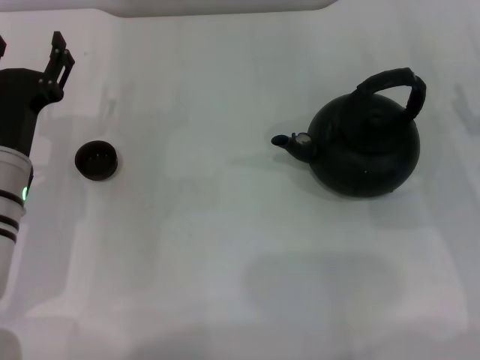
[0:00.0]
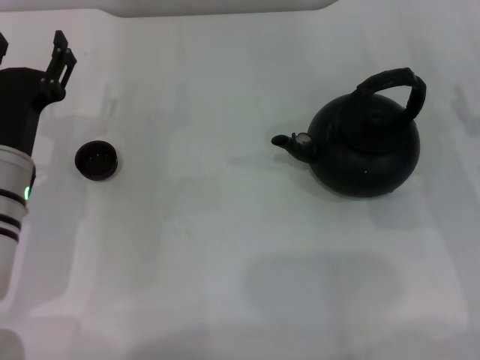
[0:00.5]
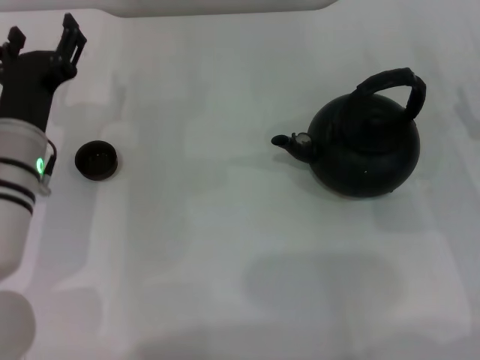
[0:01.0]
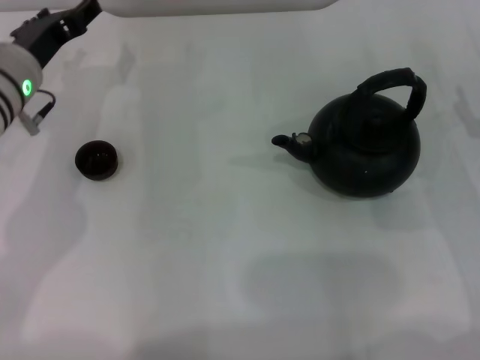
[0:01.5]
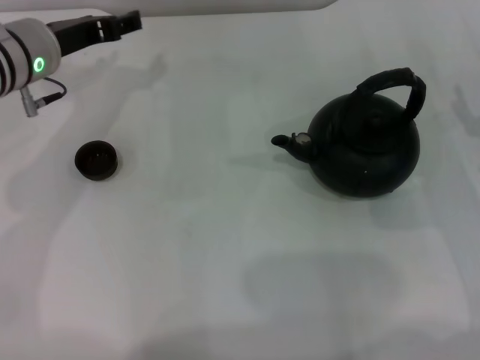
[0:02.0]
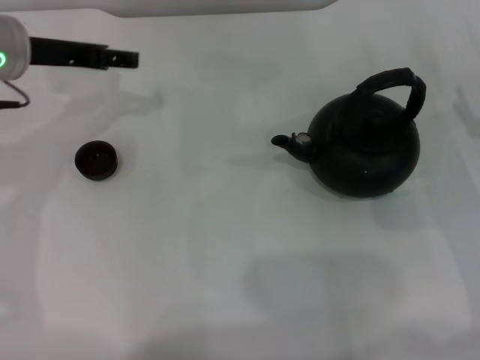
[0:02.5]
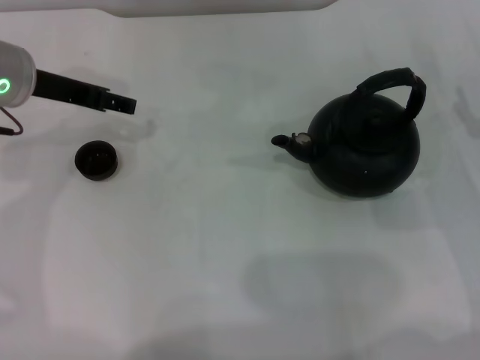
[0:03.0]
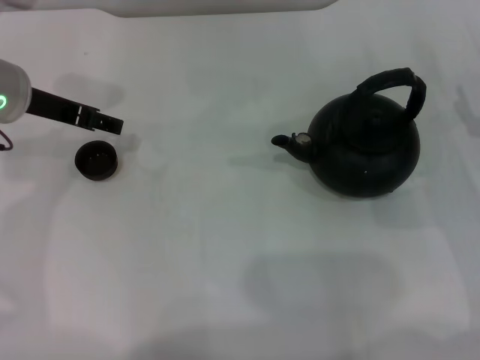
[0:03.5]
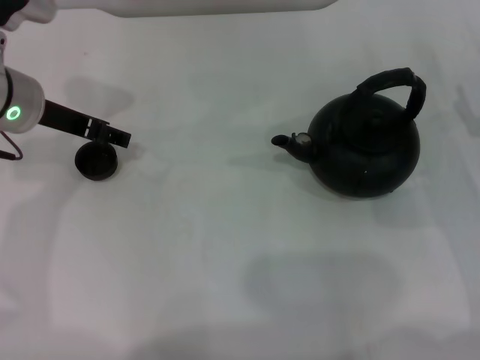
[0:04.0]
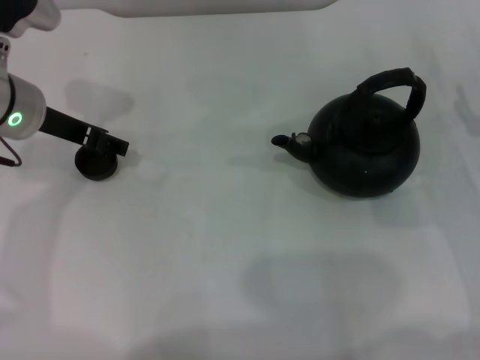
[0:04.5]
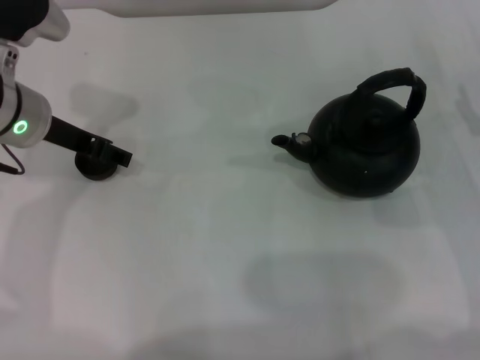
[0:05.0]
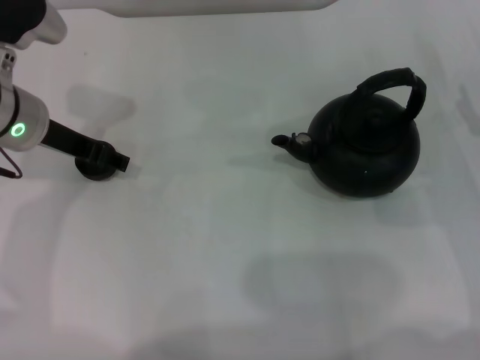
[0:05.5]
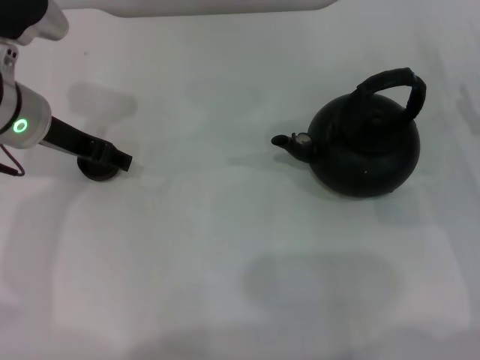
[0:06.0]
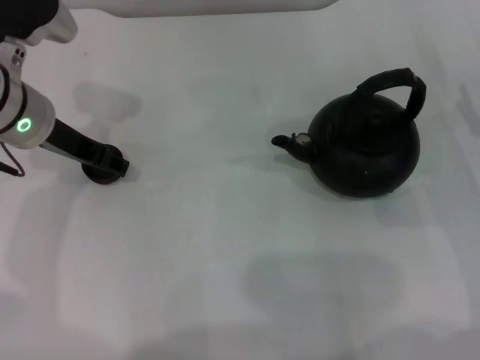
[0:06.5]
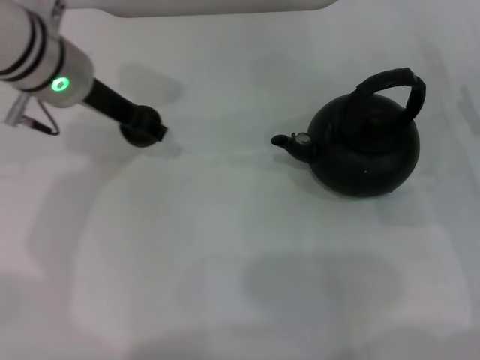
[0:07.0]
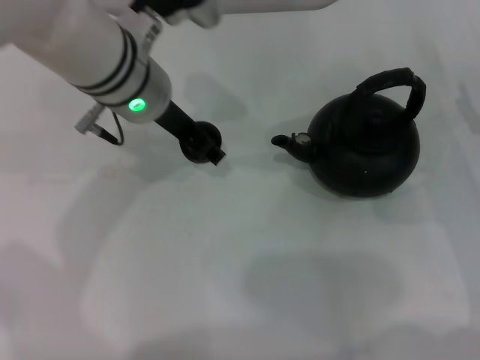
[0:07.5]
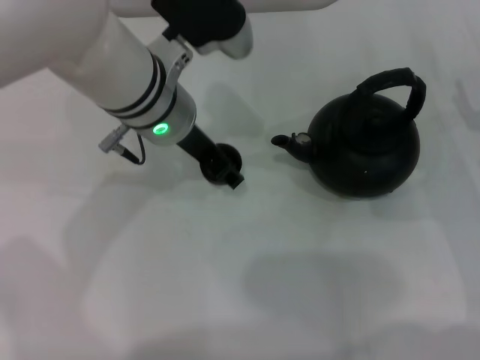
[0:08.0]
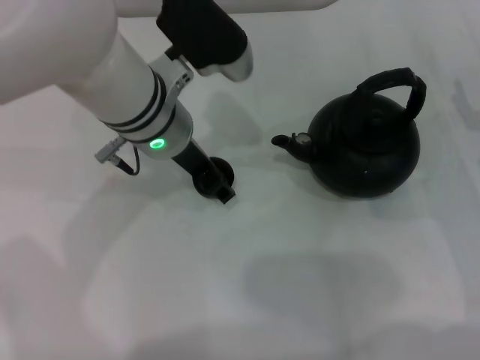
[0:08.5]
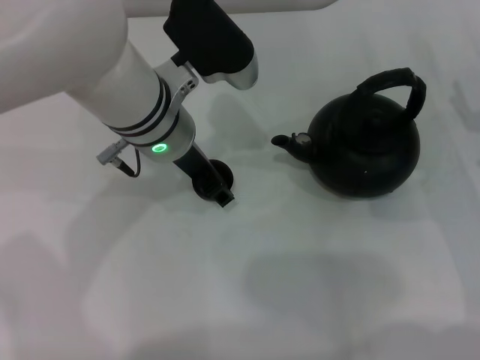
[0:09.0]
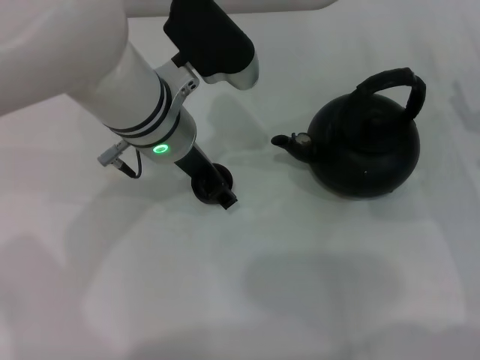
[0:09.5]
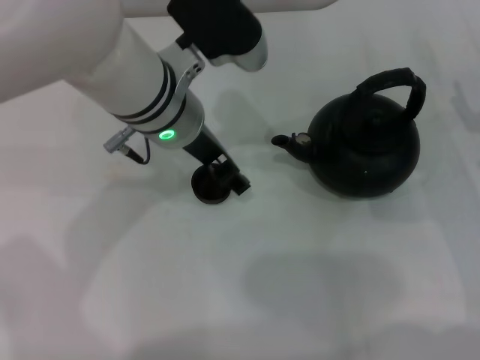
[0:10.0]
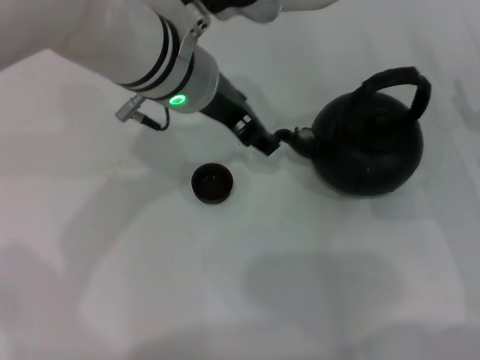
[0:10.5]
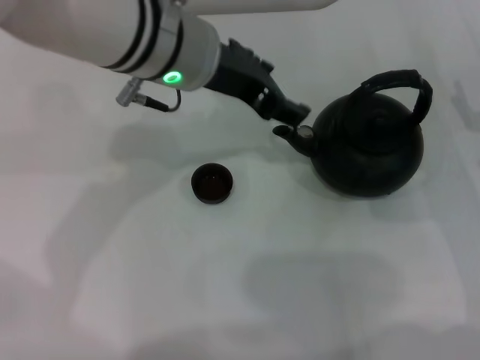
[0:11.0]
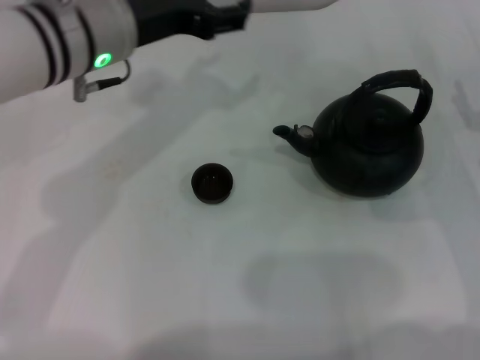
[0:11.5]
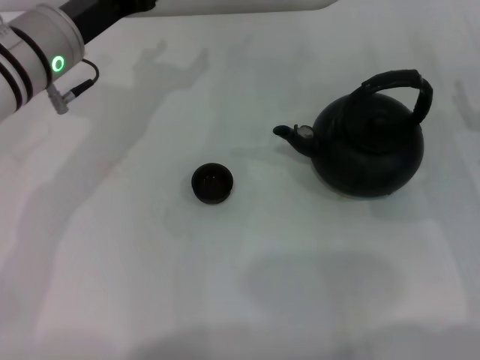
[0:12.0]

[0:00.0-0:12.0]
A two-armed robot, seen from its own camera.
Task of the whole recording: Grasp the handle of the teapot with one hand and pour tea into the teacup.
Step, 0:00.0 to 0:07.0: Pick up the teacup with the left gripper.
Step, 0:07.5 to 0:10.0: Place the teacup in the center of view with the left gripper.
0:00.0 to 0:02.0: The left gripper moves forward and upward, some 15 cm.
0:04.0 to 0:06.0: The grippers stay close to where they were, moving slightly.
0:06.0 to 0:08.0: The left gripper goes roughly 15 cm to the right, and closes its fingers.
0:08.0 to 0:10.0: The left gripper opens its fingers.
0:10.0 to 0:12.0: The left gripper goes approximately 10 cm to the left.

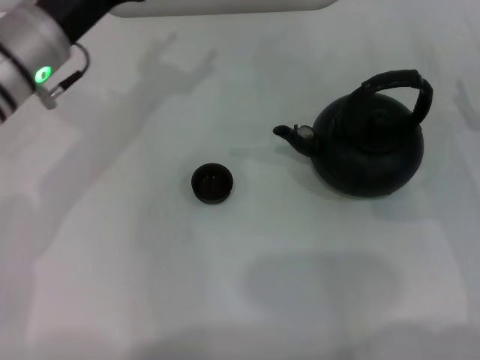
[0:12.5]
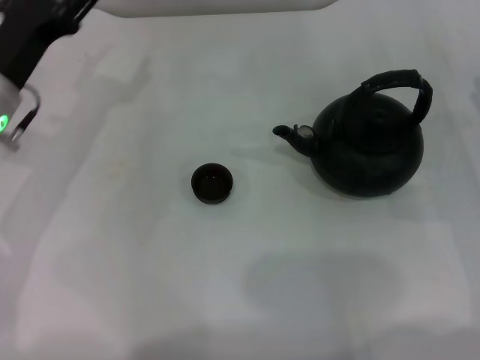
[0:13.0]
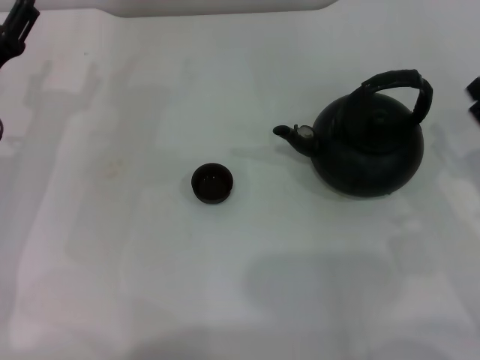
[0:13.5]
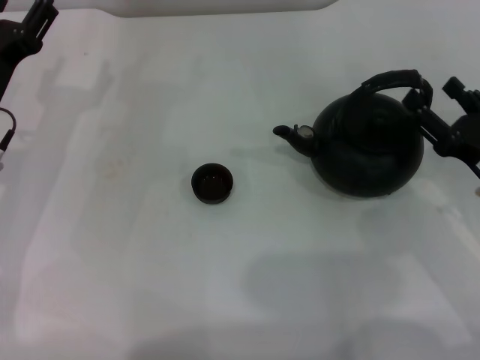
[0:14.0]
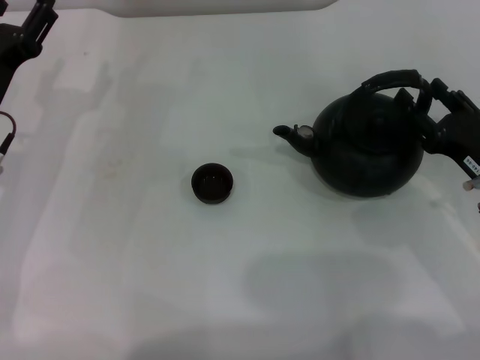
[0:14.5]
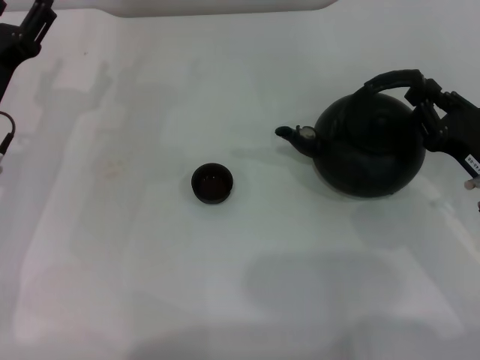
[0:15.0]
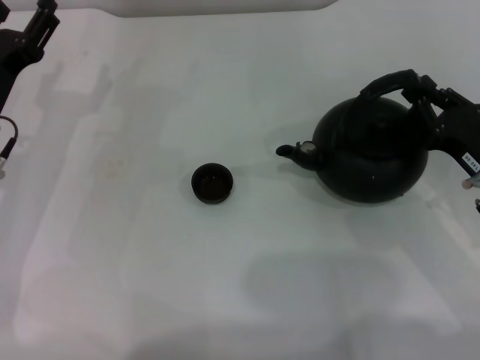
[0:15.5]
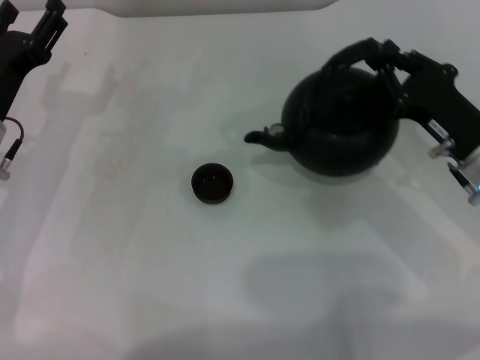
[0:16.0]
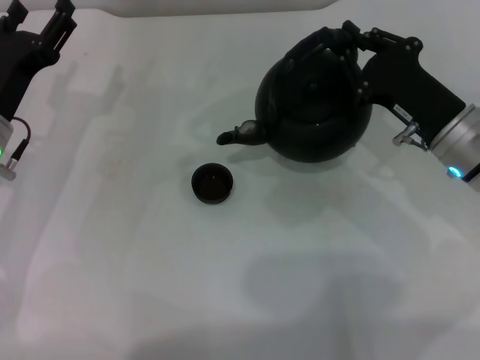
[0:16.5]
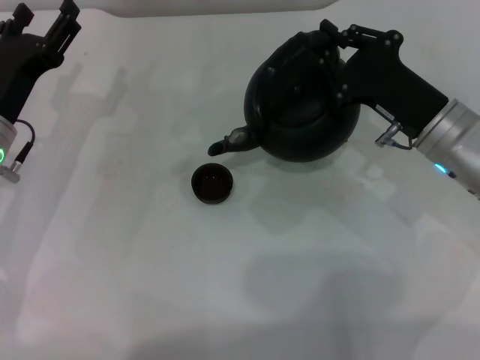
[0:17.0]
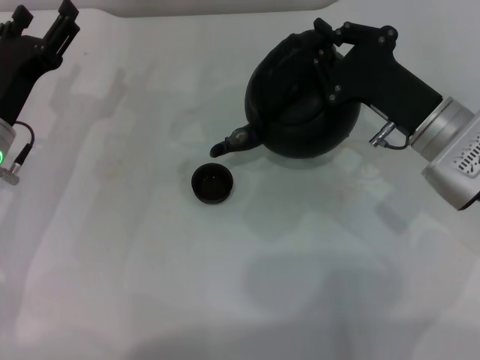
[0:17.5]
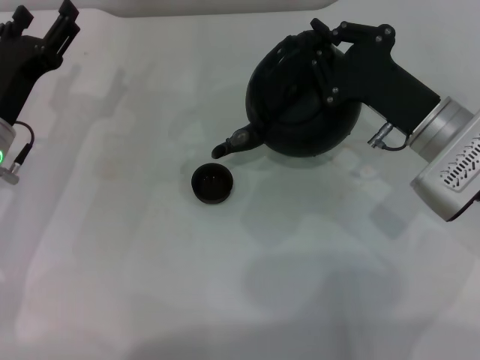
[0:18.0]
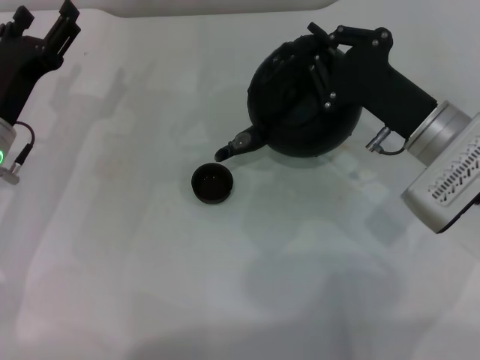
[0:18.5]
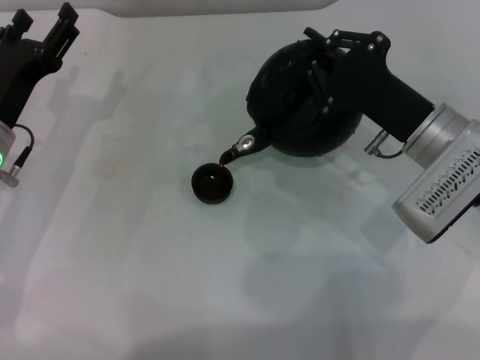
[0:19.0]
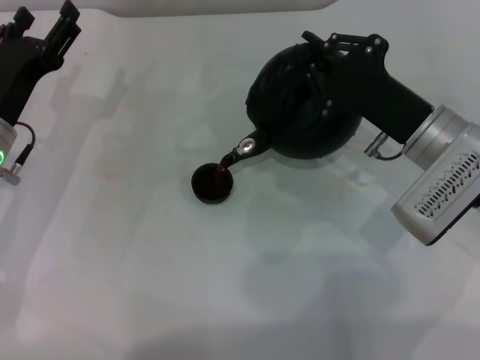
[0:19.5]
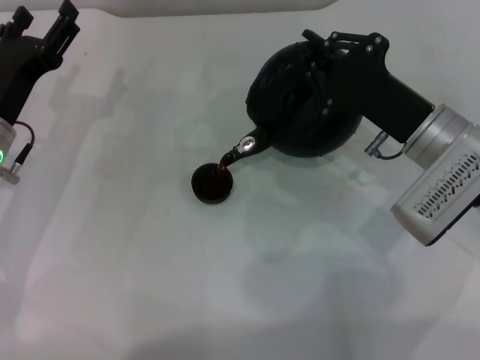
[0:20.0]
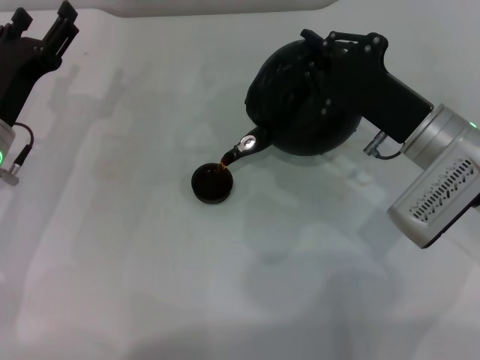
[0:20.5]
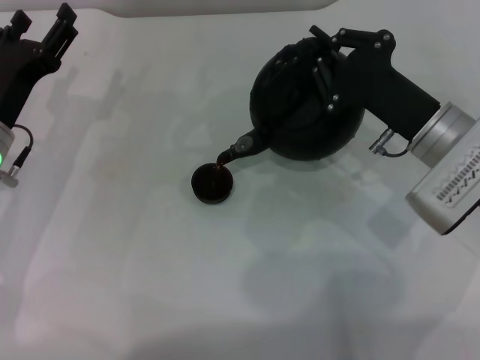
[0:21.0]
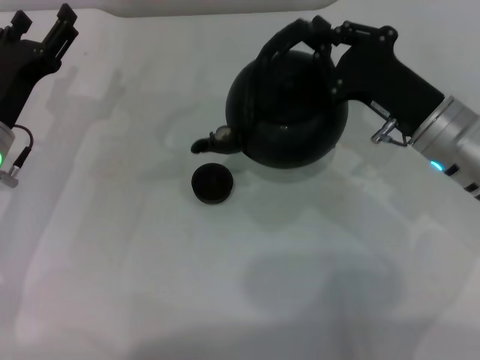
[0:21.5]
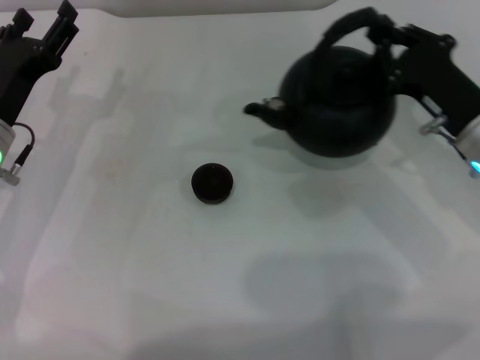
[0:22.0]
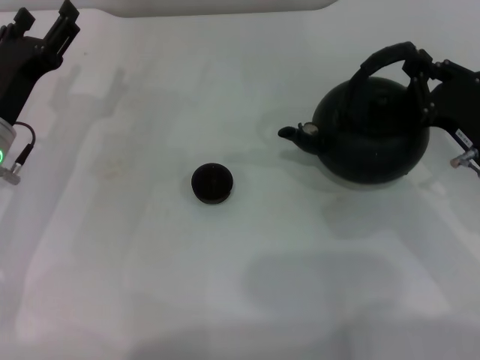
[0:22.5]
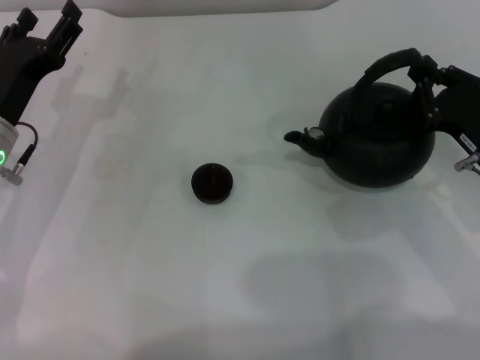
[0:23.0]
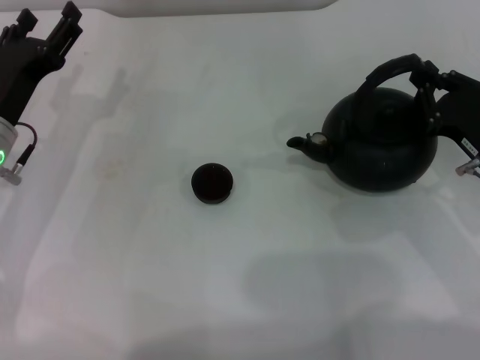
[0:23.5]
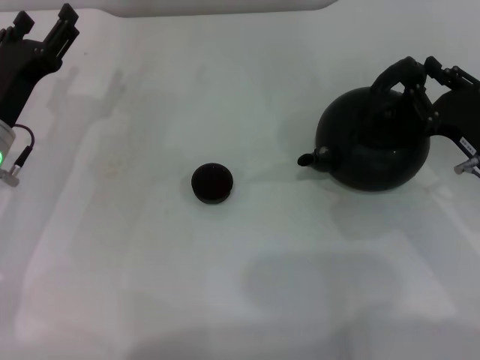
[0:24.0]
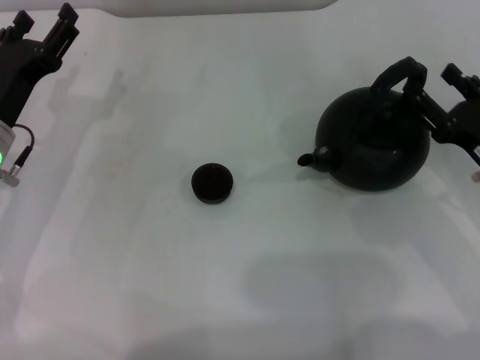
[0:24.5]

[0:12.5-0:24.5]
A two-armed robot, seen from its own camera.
Task of the whole recording: Grasp the handle of the teapot with one hand and pour tea into the teacup.
Step, 0:12.5 to 0:16.5: Pick up the teapot with the right gripper.
Step, 0:17.0 to 0:21.5: Pour tea into the teacup with the right gripper.
0:12.5 to 0:14.5: The left gripper shifts roughly 10 cm downward and to the left. The right gripper shifts by approximately 5 cm.
0:14.5 to 0:16.5: The right gripper travels to the left and forward by about 10 cm, and closes.
0:18.5 to 0:20.5: The grippers stay close to where they were, moving slightly.
0:20.5 to 0:22.5: The right gripper is displaced to the right by roughly 10 cm.
0:22.5 to 0:24.5: The right gripper opens its fingers.

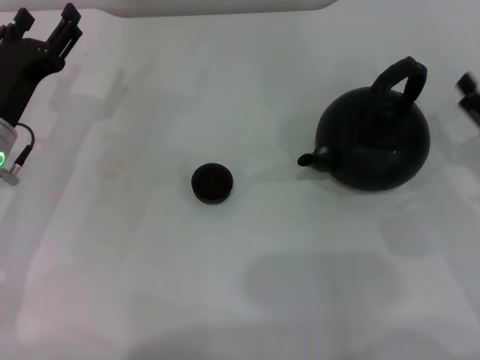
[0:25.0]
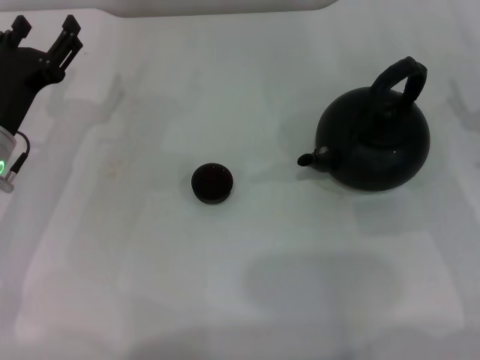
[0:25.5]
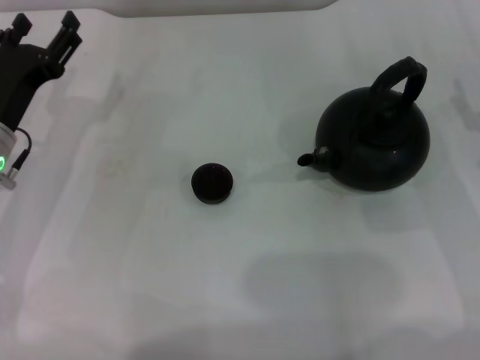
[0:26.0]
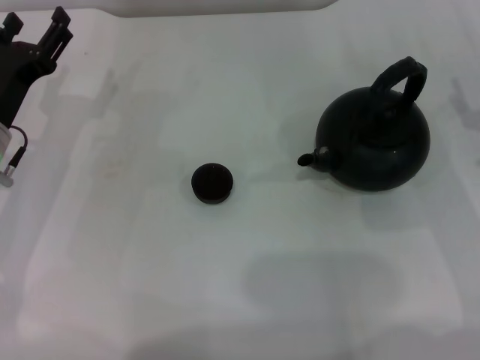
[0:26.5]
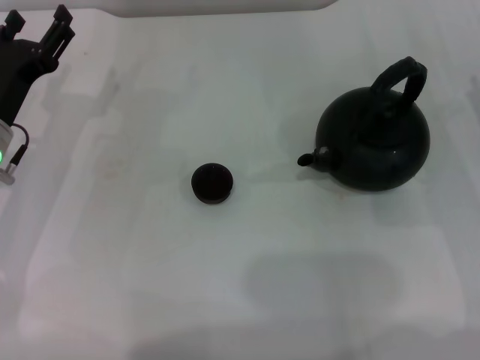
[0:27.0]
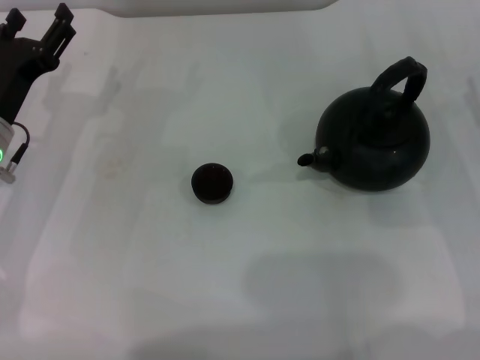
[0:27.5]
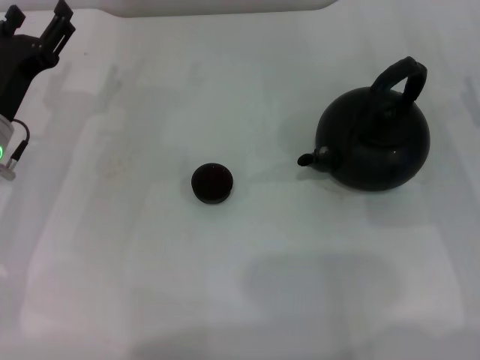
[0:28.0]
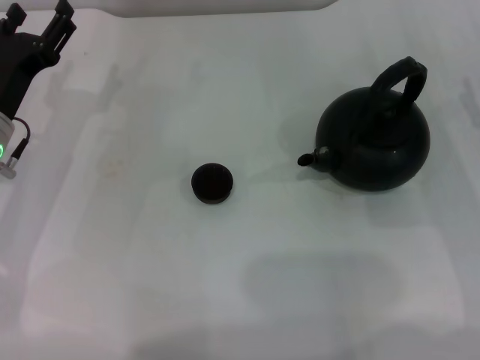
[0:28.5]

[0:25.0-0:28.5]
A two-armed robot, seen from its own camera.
Task of the whole recording: Grasp the handle of the teapot with one hand and pour tea into the teacup.
0:27.0 to 0:28.5: Both grippers stay about where they are.
